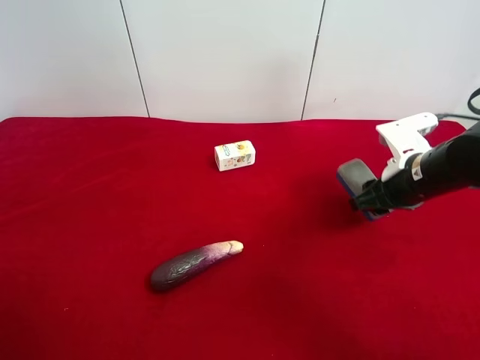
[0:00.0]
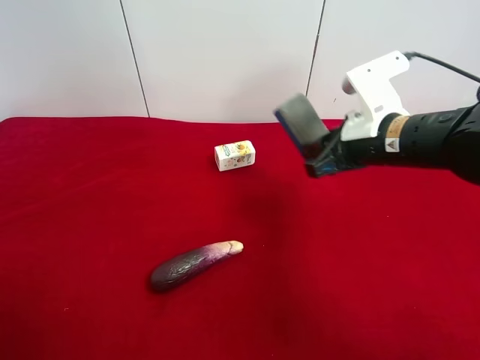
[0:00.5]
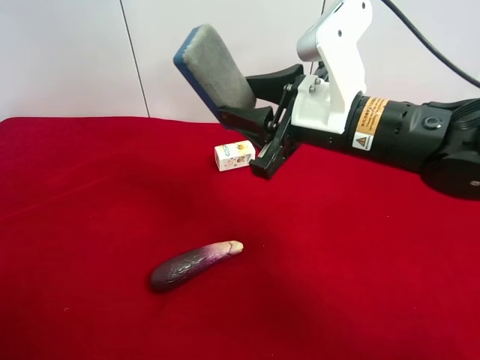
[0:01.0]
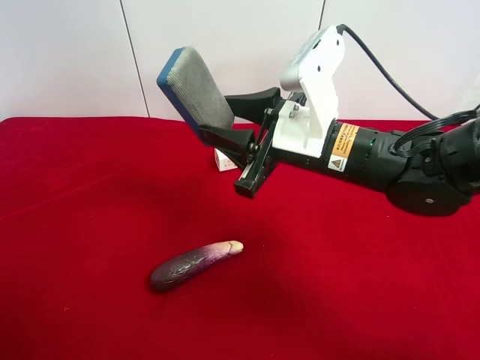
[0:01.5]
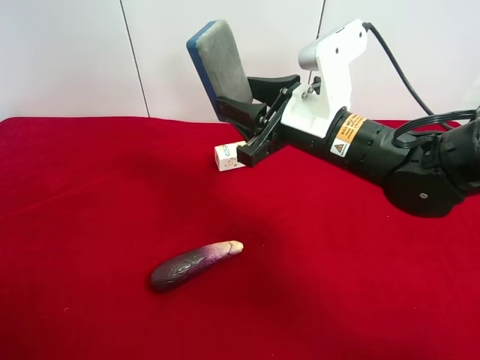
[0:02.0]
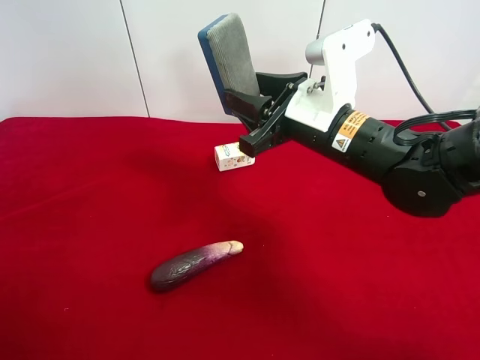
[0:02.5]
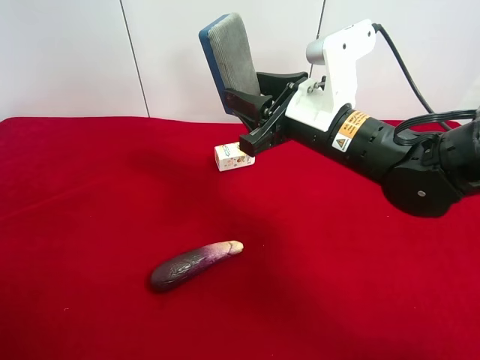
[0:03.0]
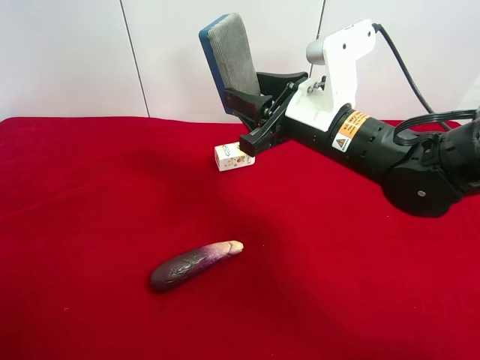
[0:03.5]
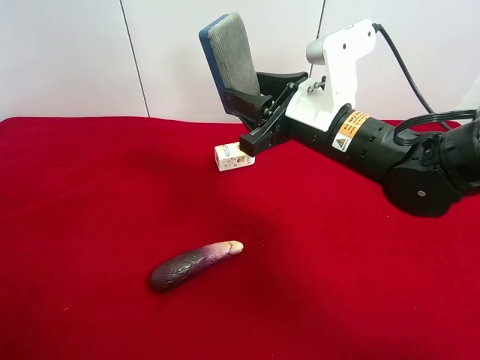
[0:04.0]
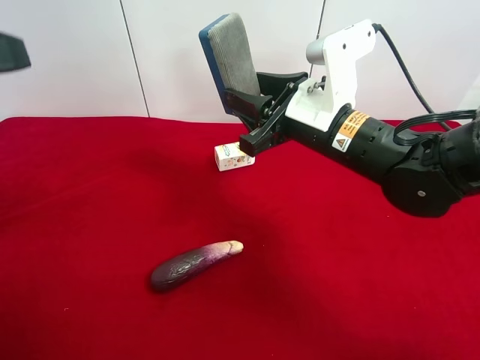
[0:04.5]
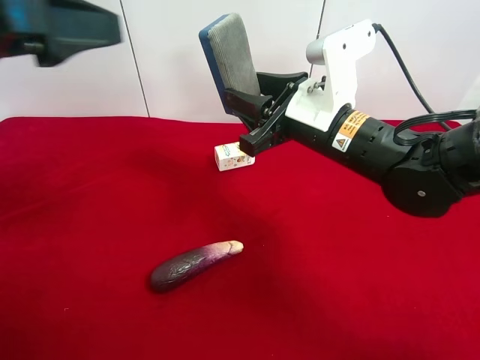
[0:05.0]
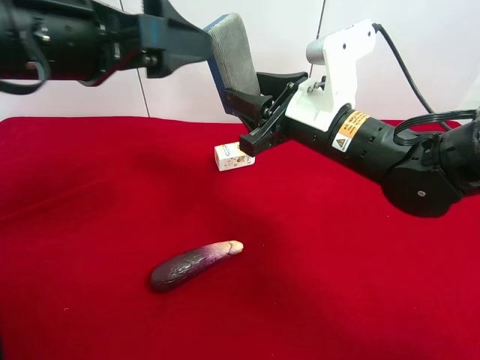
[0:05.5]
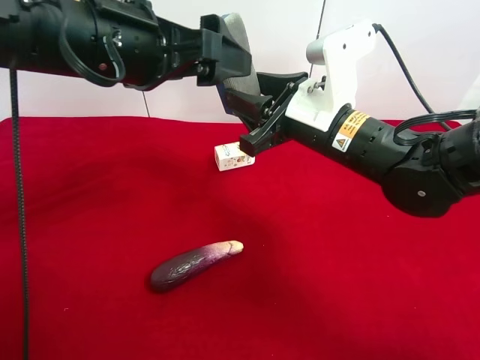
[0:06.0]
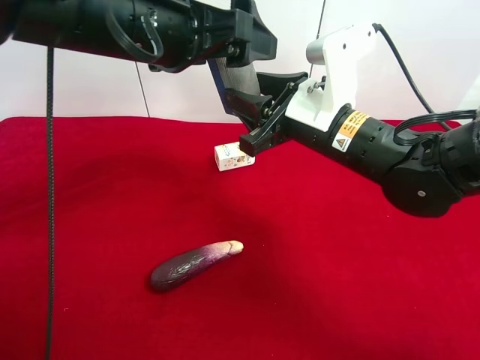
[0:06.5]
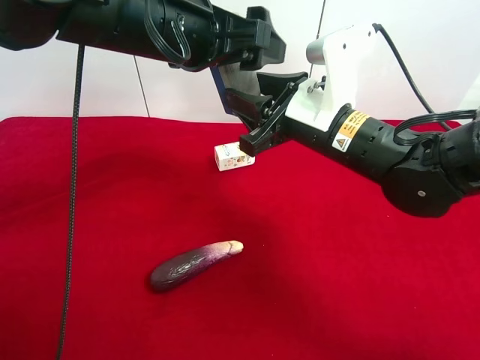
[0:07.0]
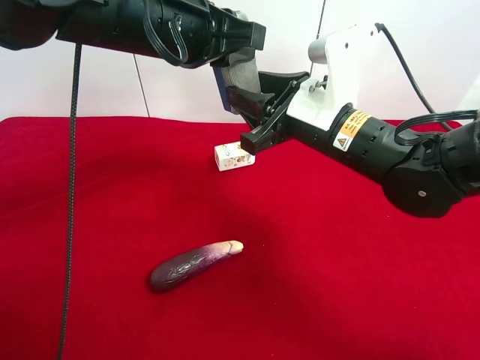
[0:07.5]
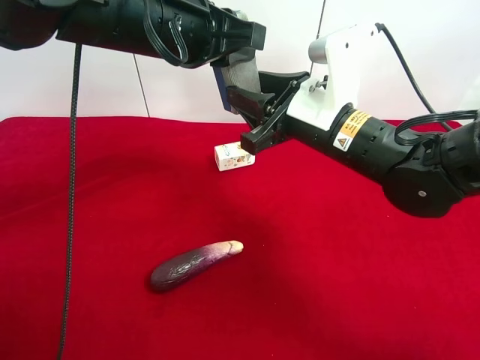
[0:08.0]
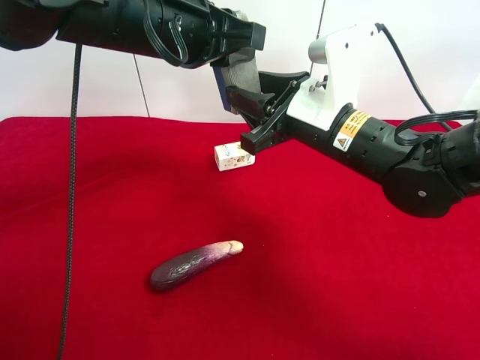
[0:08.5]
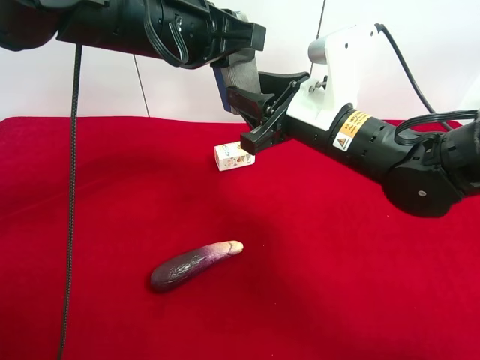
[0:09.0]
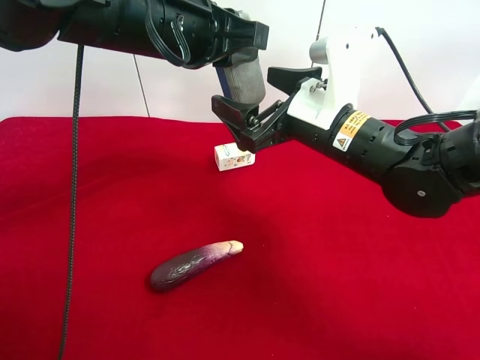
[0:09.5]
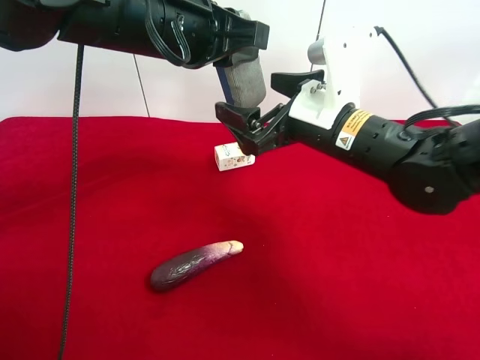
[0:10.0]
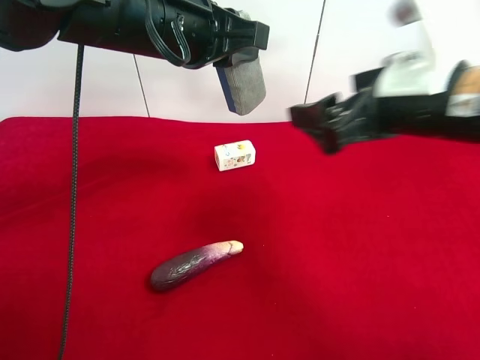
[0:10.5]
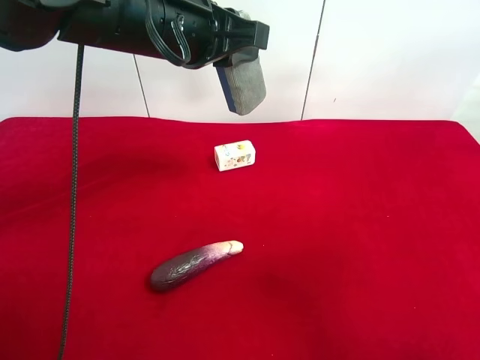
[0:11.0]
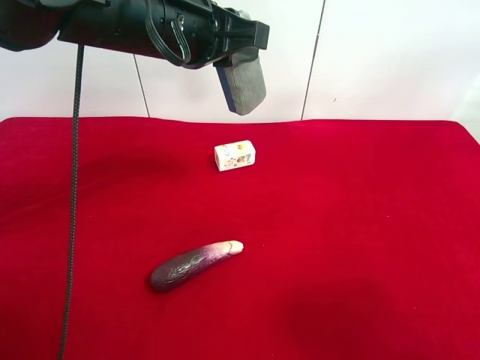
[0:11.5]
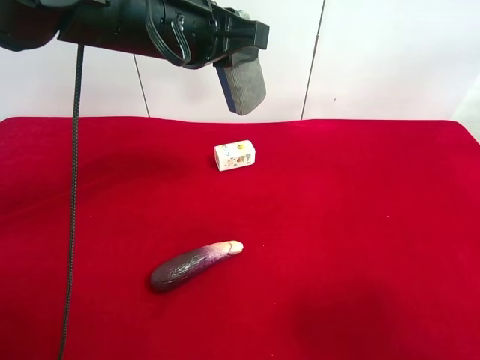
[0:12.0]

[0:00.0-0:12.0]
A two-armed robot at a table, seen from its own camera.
Task of the whole recording: use the right gripper to pick up the item and transfer it from the right gripper to the left gripper.
Step, 0:00.0 to 0:09.0: Pass the blue blackboard erasure to the left gripper.
0:00.0 to 0:02.0: The right gripper goes some 15 cm to the left and upward.
0:02.0 to 0:04.0: The left gripper shifts roughly 5 cm forward.
0:04.0 to 0:06.0: The left gripper is displaced forward and to the right by approximately 25 cm.
0:06.0 to 0:08.0: The left gripper moves roughly 5 cm, and closes.
0:08.0 to 0:10.0: The right gripper opens up.
0:10.0 to 0:12.0: The right gripper moves backward and to the right, about 30 cm.

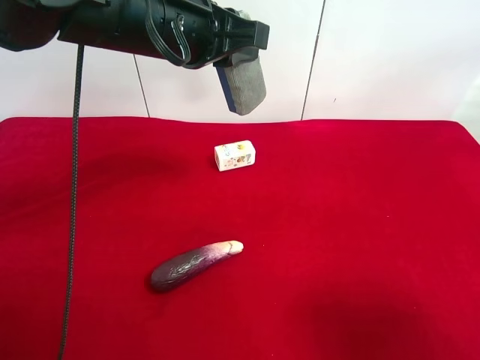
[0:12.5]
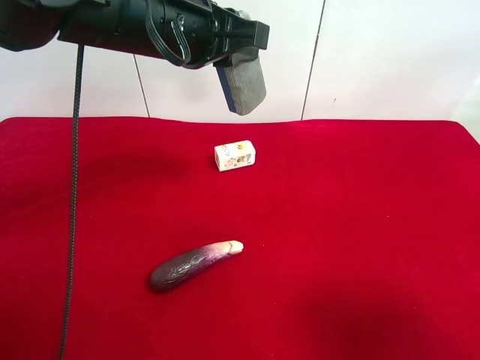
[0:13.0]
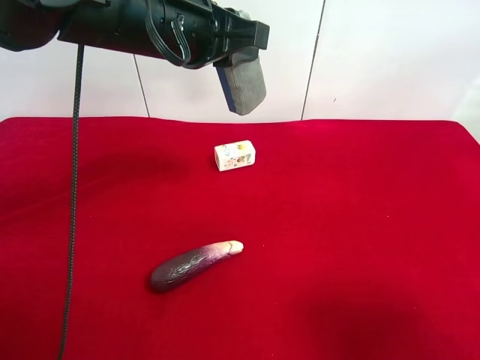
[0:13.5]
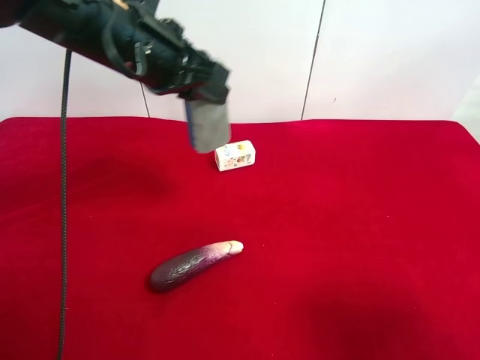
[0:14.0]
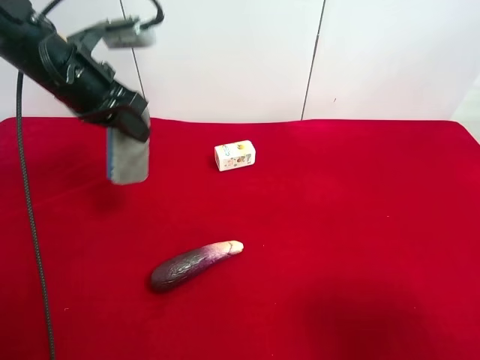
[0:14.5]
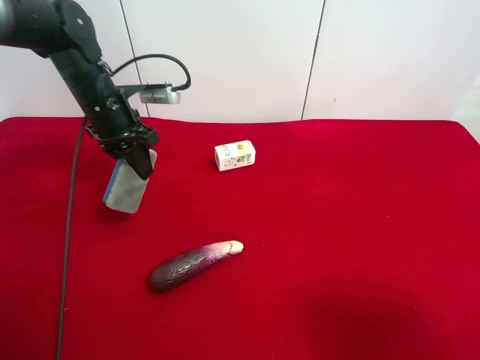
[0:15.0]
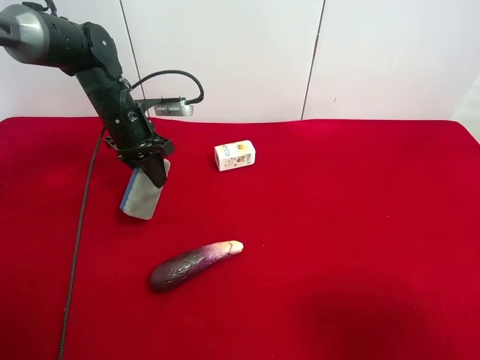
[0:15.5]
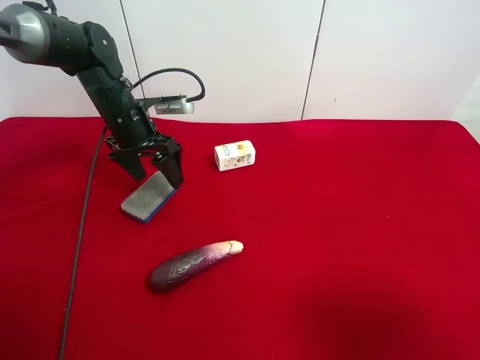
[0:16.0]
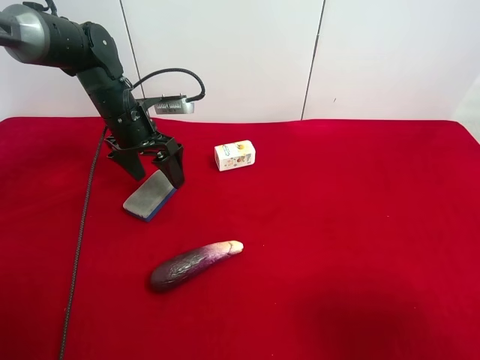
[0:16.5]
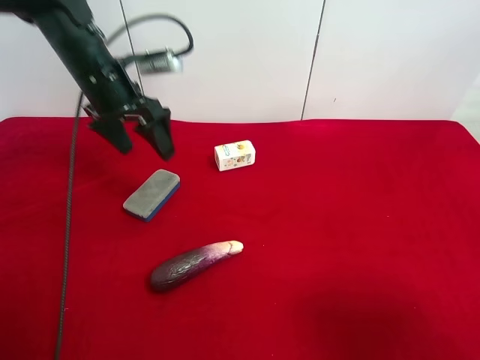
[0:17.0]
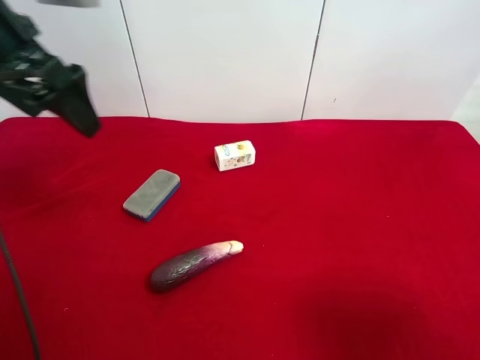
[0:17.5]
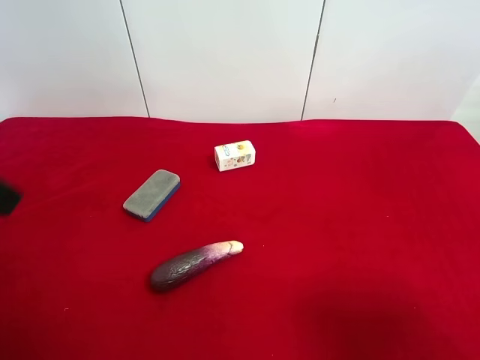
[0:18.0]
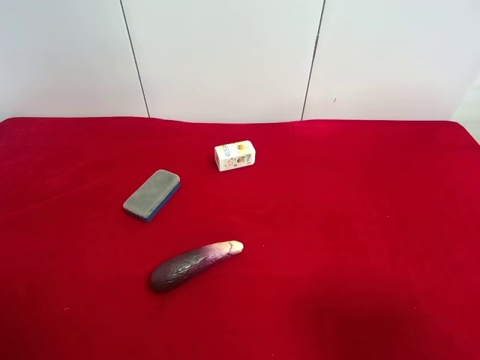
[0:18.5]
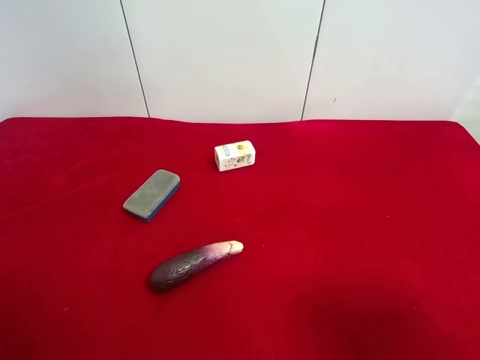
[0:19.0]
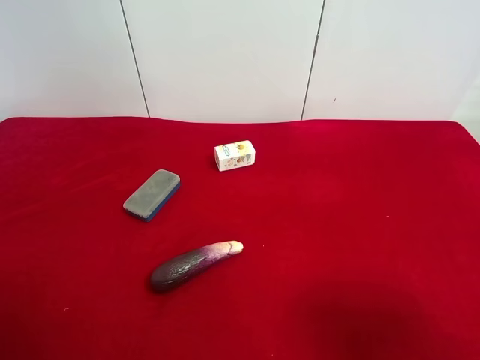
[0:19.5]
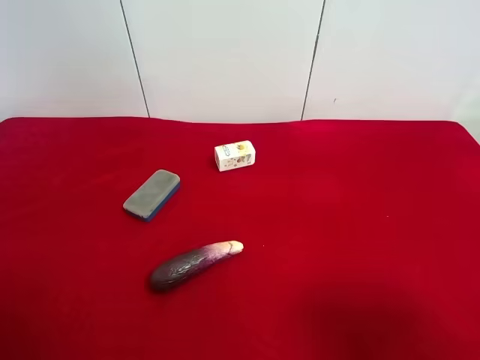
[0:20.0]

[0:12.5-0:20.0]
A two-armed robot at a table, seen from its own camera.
Task of the whole recording: use the right gripper to pick up the item and transfer it from the right gripper to the left gripper.
Step, 0:12.5 to 0:16.0: The left gripper places blue blackboard erasure on the left side of the table.
0:12.5 to 0:14.5: The left gripper is displaced to the left and downward by approximately 15 cm.
0:14.5 to 0:16.5: The left gripper goes some 10 cm downward and forward, and opens.
0:16.5 to 0:18.0: The left gripper shifts approximately 35 cm backward and upward.

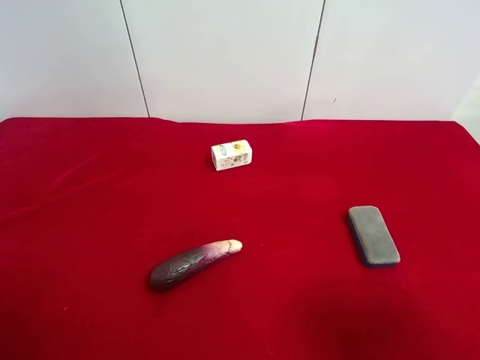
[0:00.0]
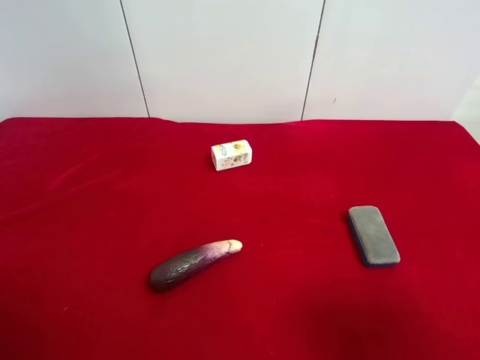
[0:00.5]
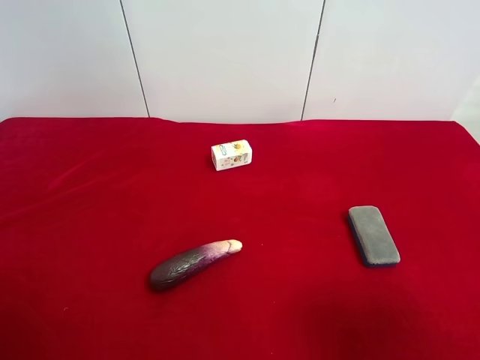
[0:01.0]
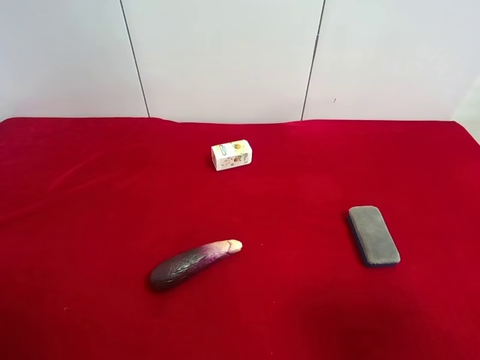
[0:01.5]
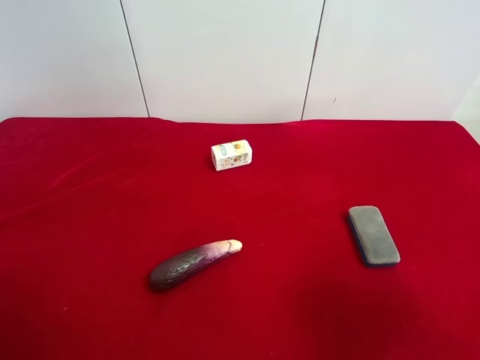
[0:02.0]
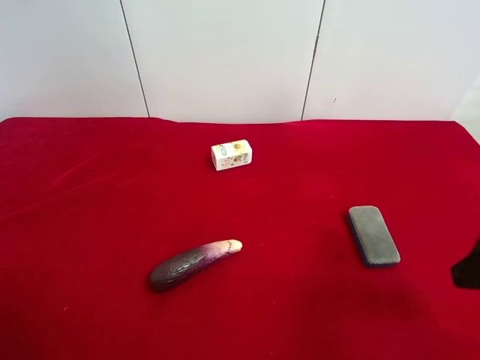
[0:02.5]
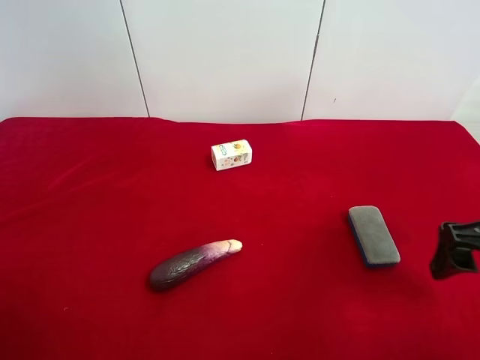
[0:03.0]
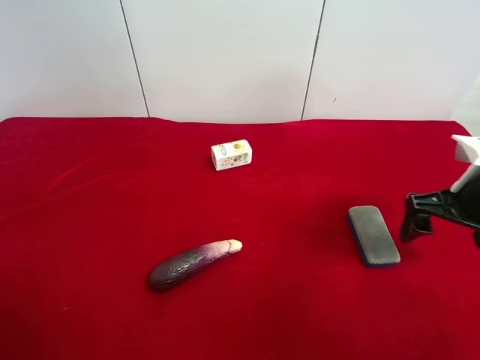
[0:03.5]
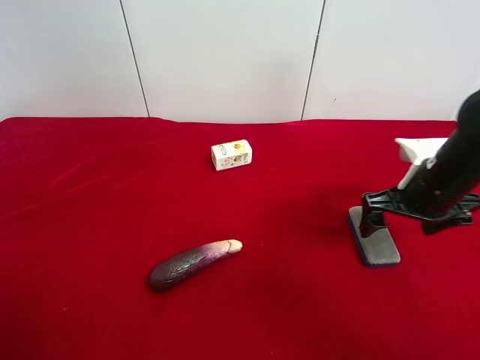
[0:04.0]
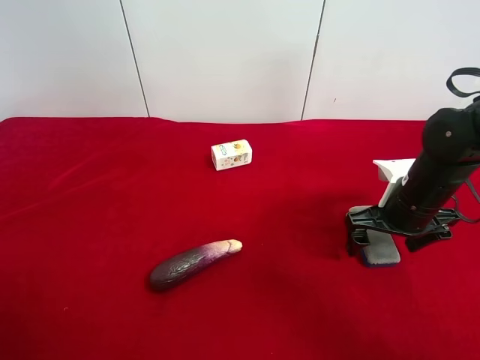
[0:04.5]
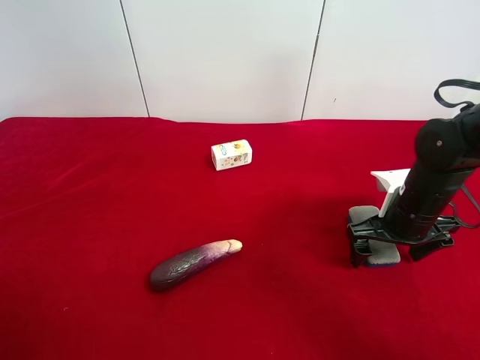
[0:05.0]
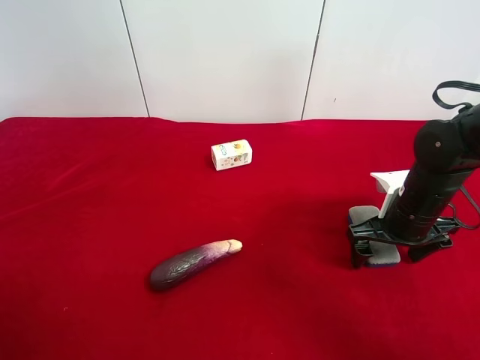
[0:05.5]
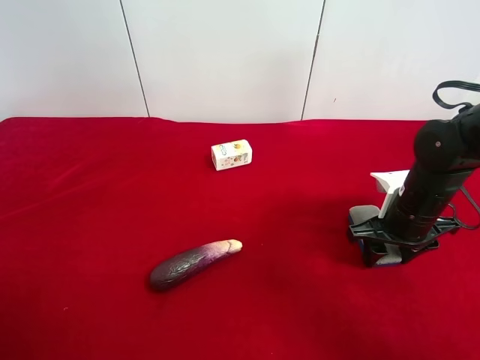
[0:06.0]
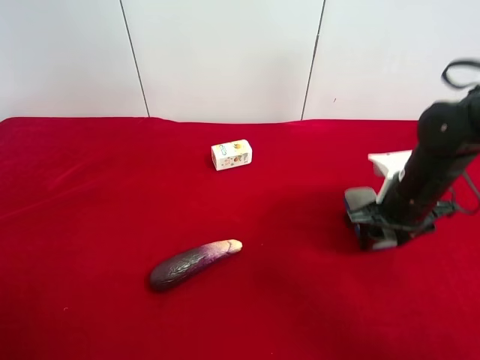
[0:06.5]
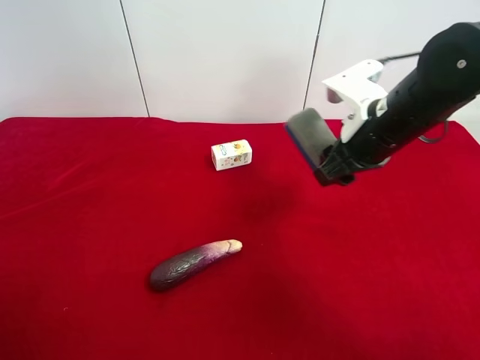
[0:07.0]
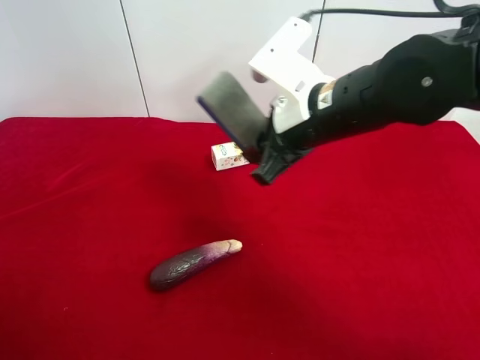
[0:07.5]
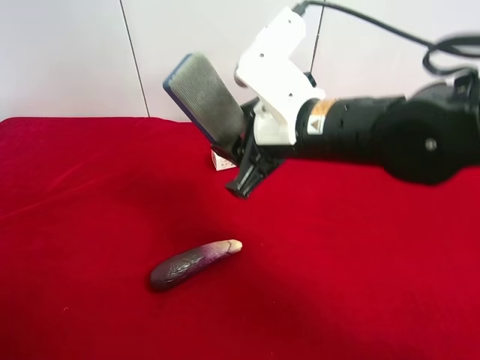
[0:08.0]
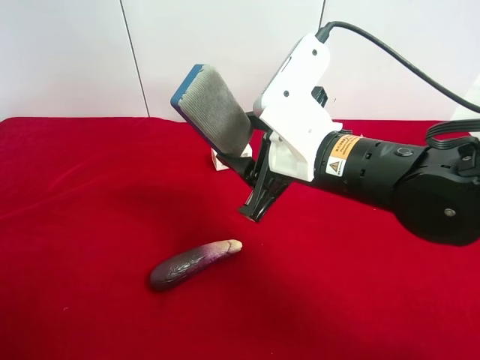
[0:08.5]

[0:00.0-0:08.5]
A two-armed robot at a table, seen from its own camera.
Task of the whole recording: use the right gripper to pick up the item and transfer it from the right gripper to the left gripper.
Step, 0:00.0 to 0:05.5: Use the right gripper to grab the blue blackboard erasure on the right side of the table.
0:02.0 to 0:04.0: The right gripper is displaced forward and downward by approximately 25 cm.
0:04.0 to 0:06.5: The right gripper closes.
0:06.5 to 0:08.5: The right gripper moves to the left and upward, some 15 cm.
